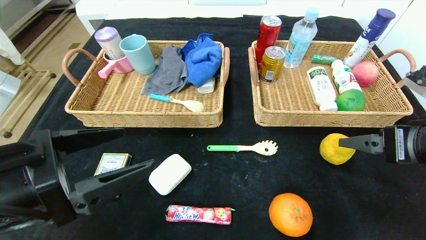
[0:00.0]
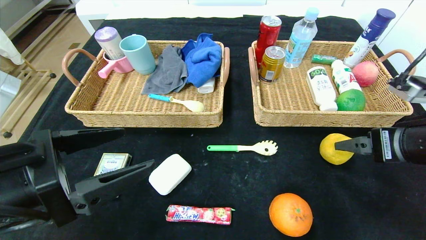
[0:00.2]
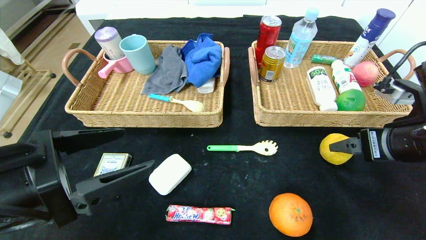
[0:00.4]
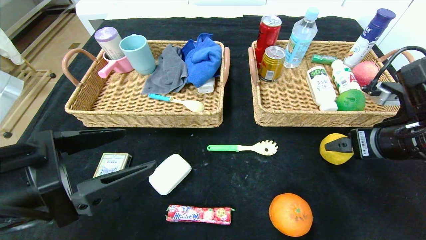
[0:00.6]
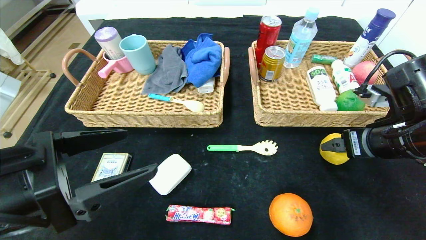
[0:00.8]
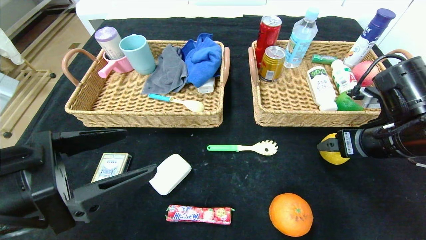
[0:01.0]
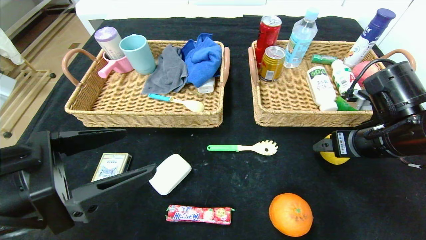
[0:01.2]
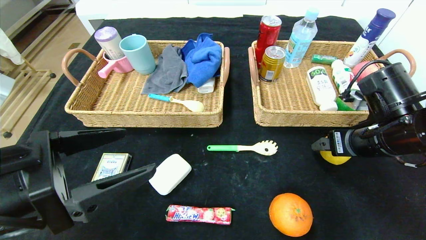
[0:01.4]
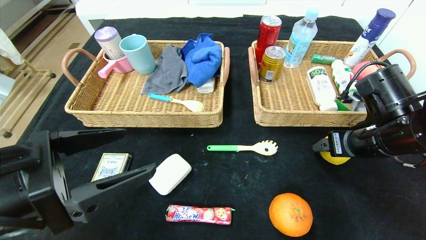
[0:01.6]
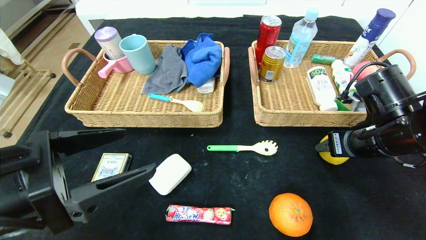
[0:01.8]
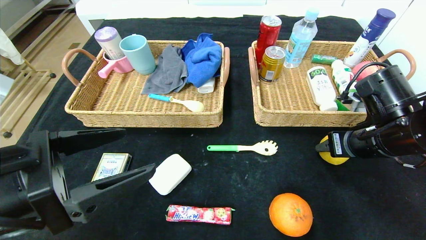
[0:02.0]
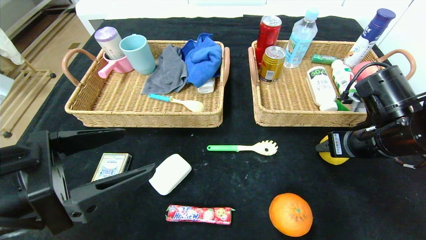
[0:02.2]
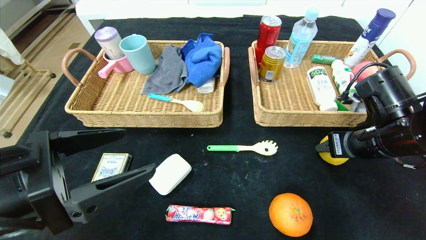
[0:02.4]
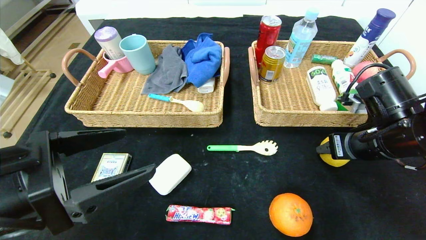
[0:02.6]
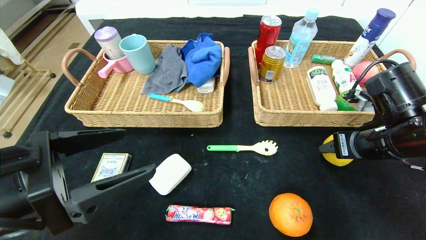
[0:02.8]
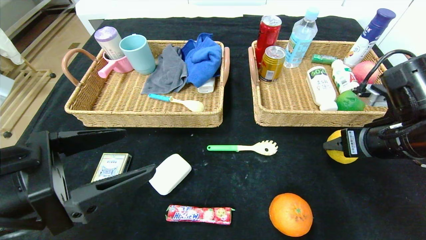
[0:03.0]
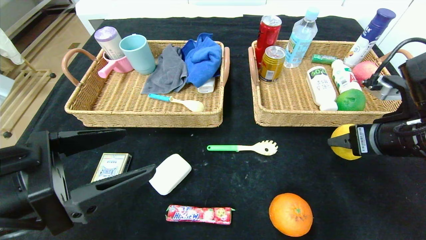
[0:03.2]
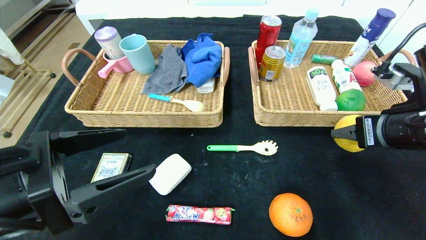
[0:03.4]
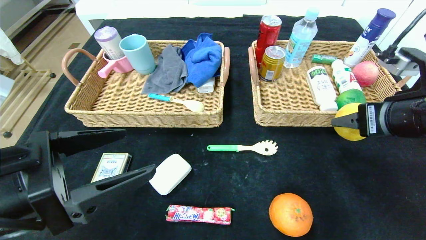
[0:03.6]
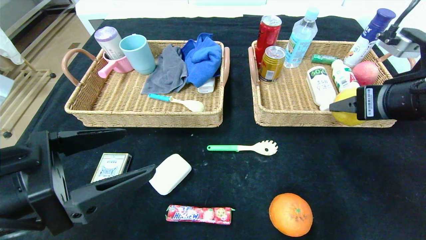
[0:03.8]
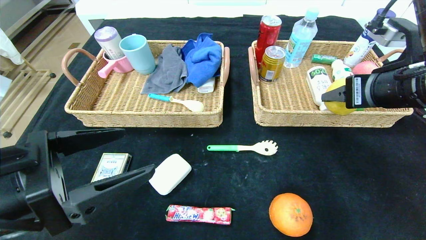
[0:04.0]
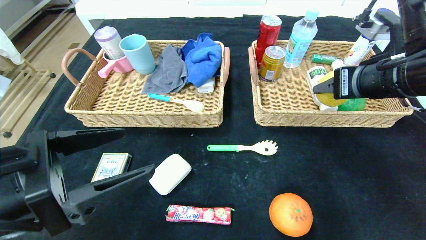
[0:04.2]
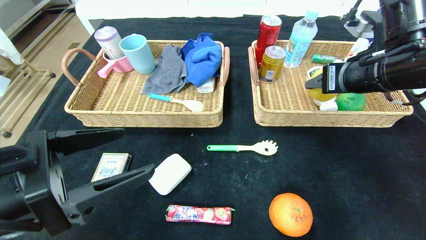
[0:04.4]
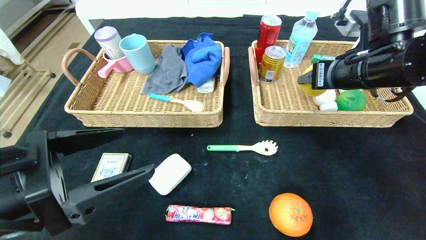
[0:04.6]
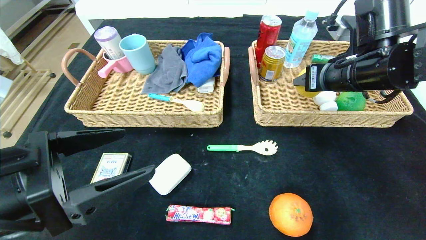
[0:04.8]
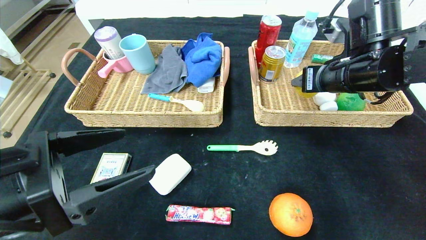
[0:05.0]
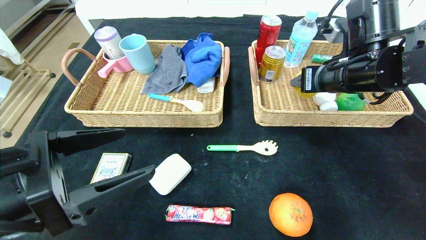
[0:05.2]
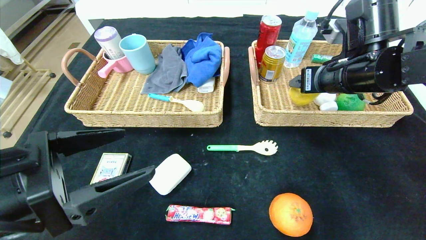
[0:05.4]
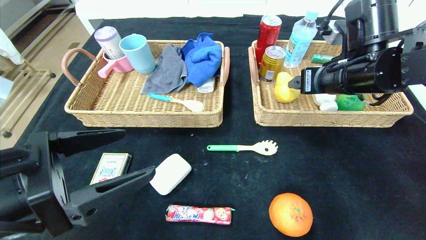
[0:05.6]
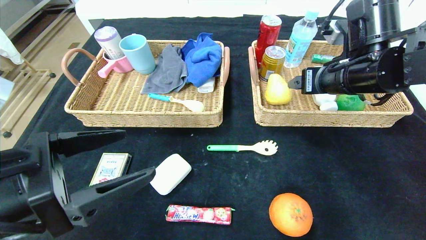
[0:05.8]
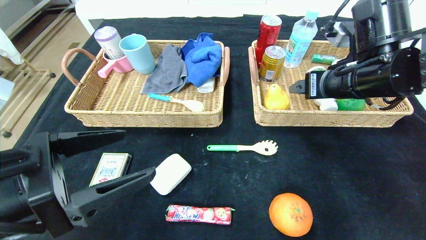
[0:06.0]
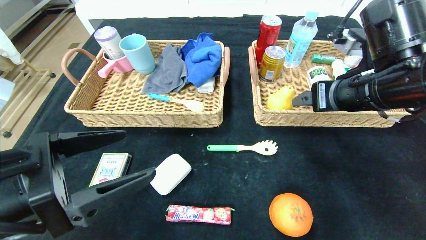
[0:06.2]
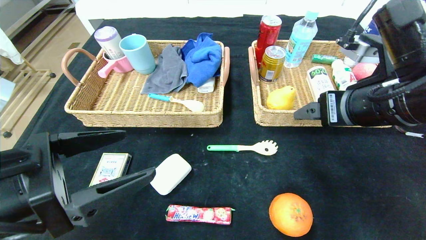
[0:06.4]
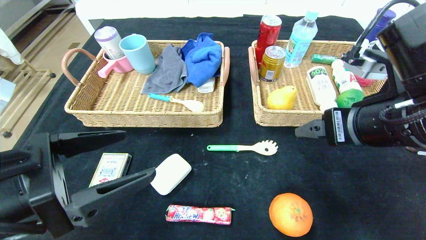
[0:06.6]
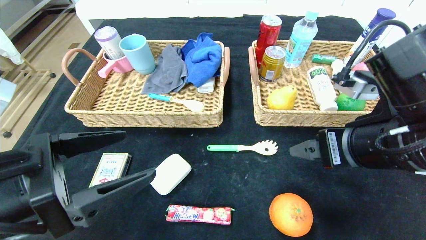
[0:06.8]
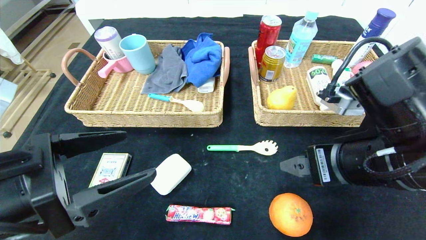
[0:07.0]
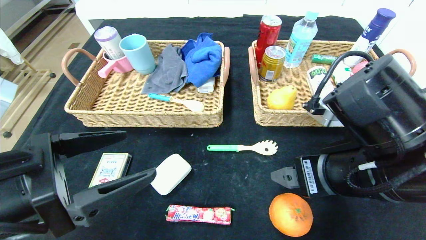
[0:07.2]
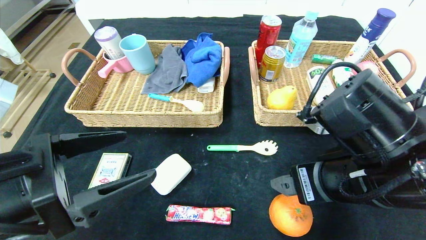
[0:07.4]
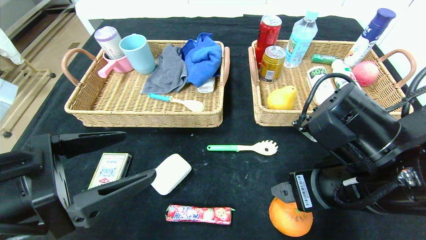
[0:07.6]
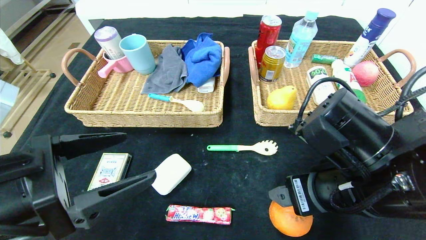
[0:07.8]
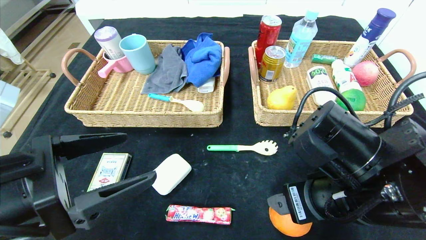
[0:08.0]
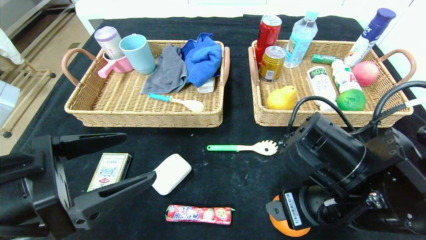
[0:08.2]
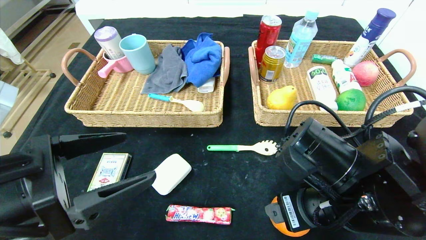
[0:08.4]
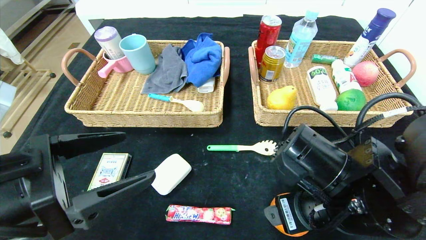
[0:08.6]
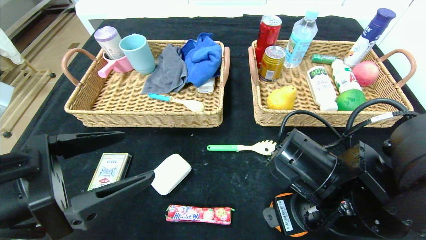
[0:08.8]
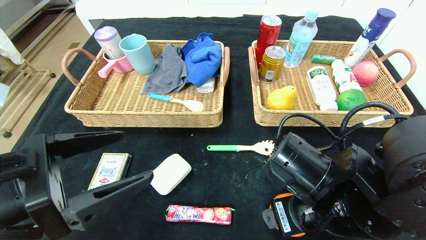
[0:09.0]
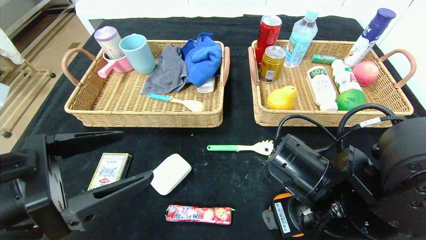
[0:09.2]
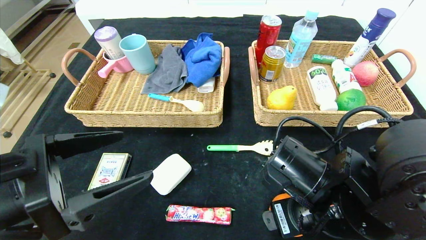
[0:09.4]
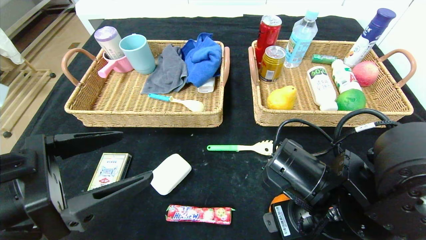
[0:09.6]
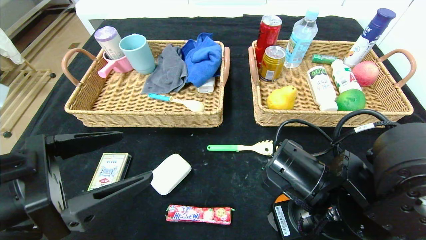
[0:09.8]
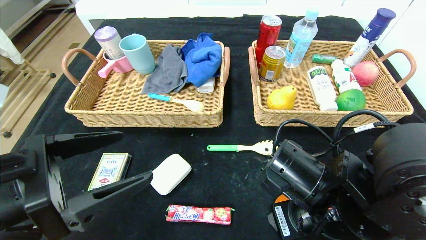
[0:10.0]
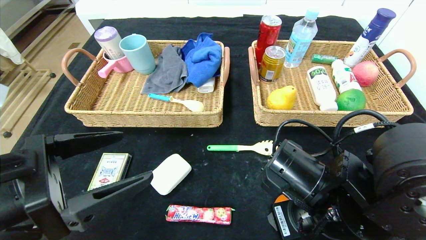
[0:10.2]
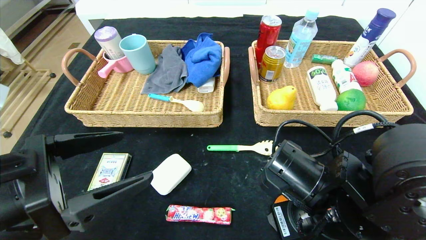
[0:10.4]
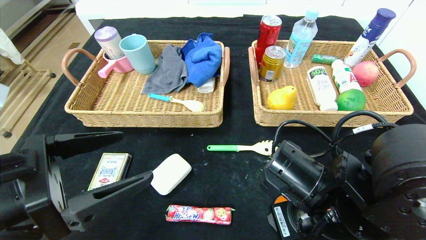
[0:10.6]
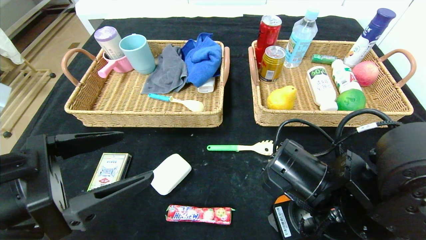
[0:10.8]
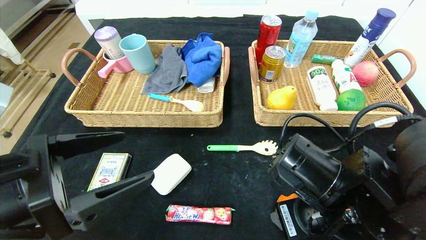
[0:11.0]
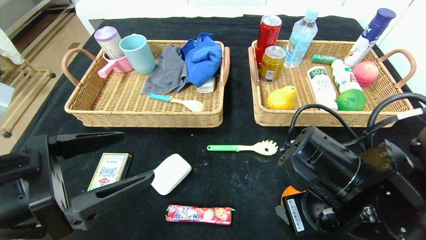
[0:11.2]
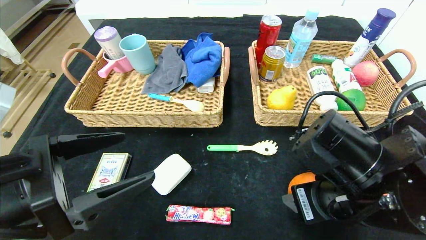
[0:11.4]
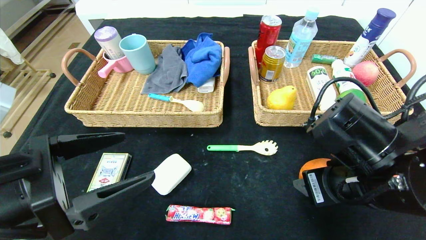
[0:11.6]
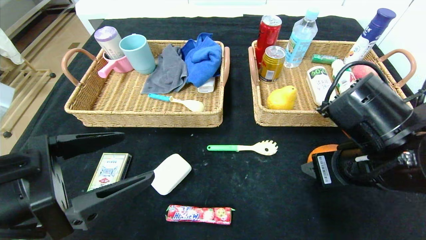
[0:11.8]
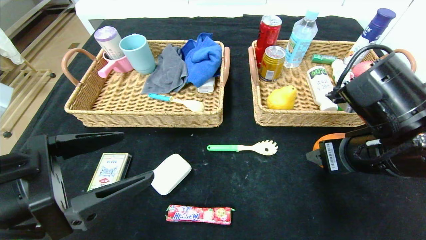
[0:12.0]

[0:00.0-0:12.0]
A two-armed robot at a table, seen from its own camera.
Step, 0:00.0 to 0:05.4: Grasp the pear and put it in the right basket.
0:00.0 to 0:01.6: The right gripper goes some 10 cm forward.
0:01.6 to 0:03.0: The grippers make only small movements.
0:03.0 to 0:04.4: The right gripper shifts about 10 cm upward and forward.
0:04.4 to 0:06.0: The grippers make only small movements.
0:06.0 to 0:07.6: The right gripper shifts about 15 cm backward, downward and to the left.
0:07.6 to 0:09.0: The right gripper shifts by about 5 cm.
0:09.0 to 0:10.4: The two grippers keep their place.
0:10.4 to 0:12.0: The right gripper goes about 10 cm upward and to the right.

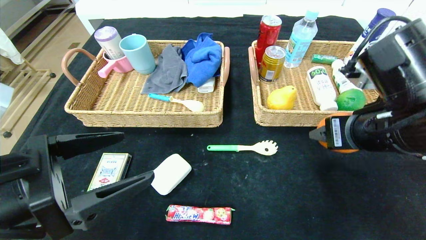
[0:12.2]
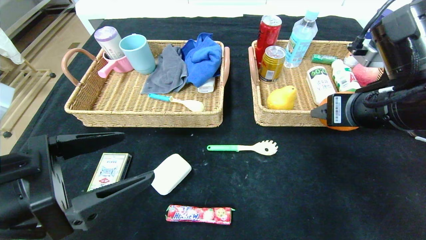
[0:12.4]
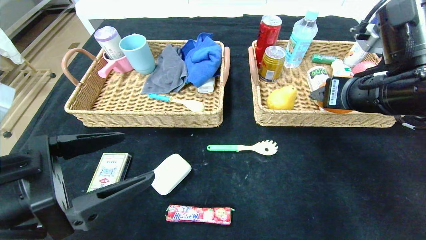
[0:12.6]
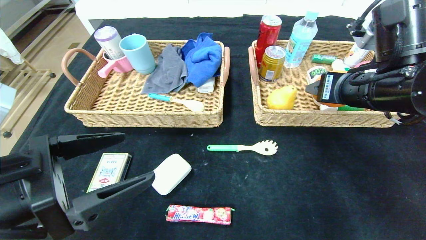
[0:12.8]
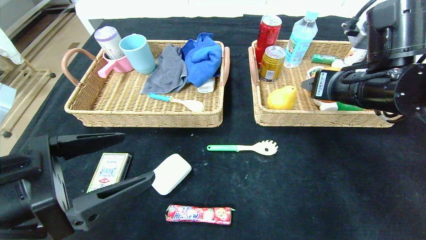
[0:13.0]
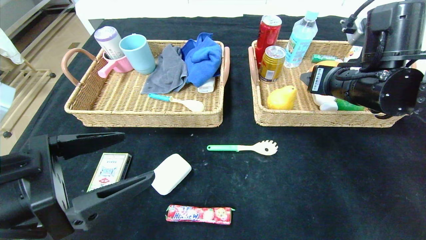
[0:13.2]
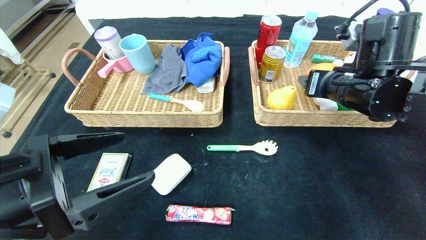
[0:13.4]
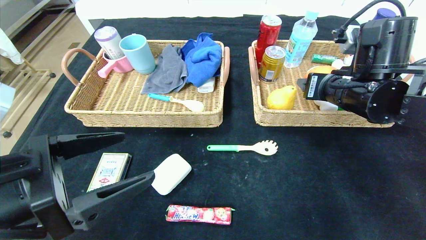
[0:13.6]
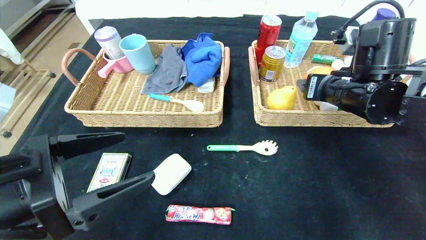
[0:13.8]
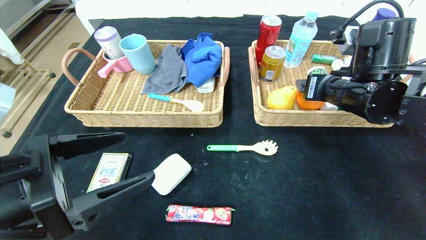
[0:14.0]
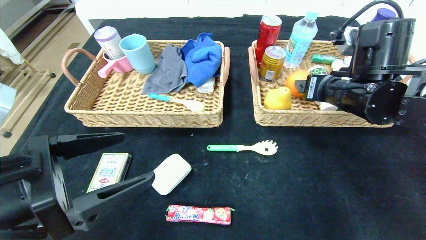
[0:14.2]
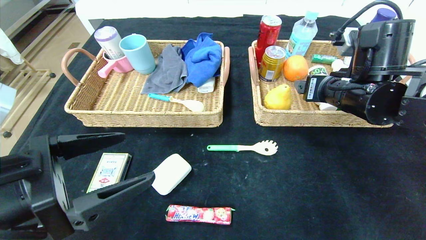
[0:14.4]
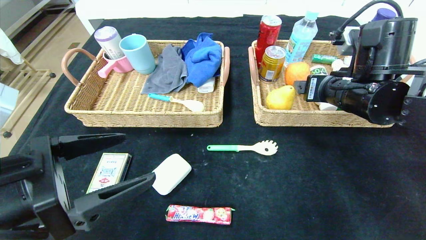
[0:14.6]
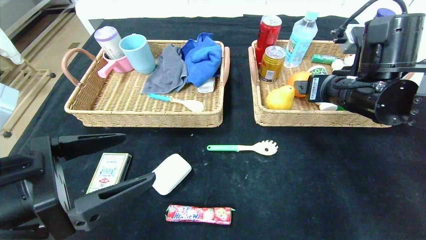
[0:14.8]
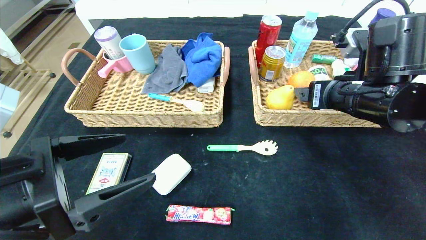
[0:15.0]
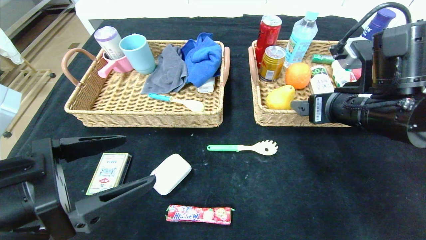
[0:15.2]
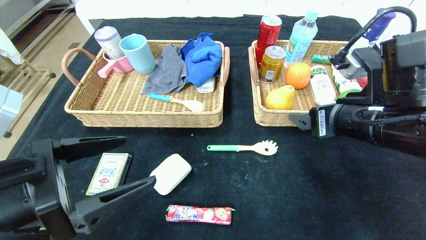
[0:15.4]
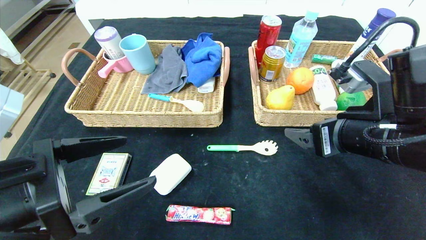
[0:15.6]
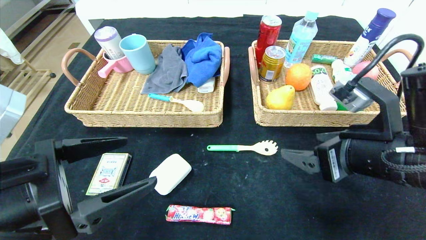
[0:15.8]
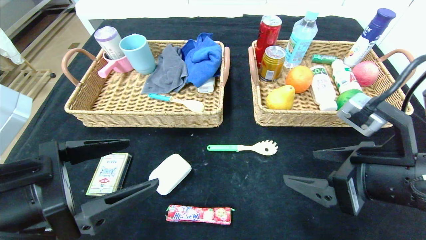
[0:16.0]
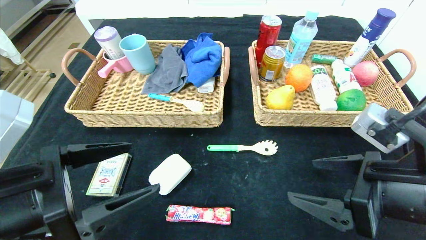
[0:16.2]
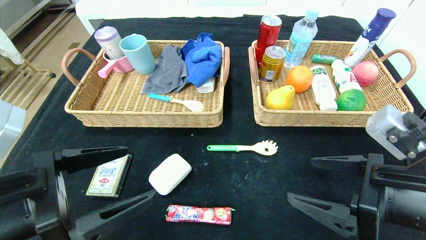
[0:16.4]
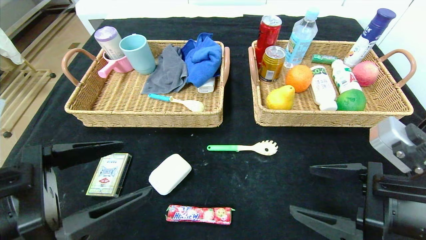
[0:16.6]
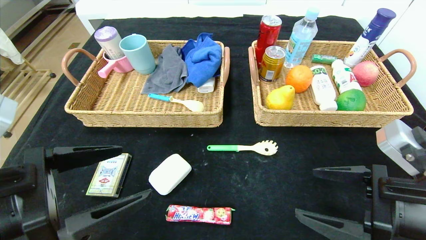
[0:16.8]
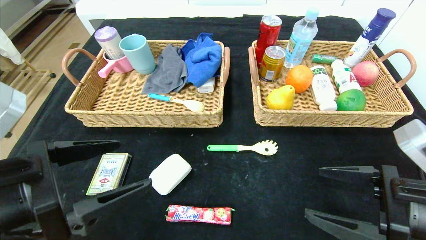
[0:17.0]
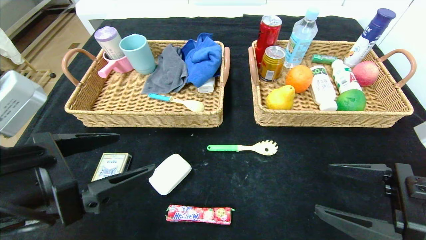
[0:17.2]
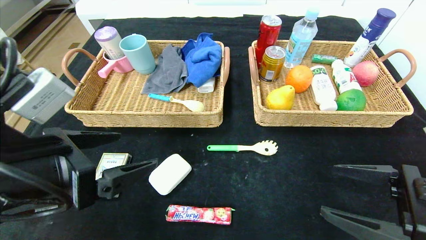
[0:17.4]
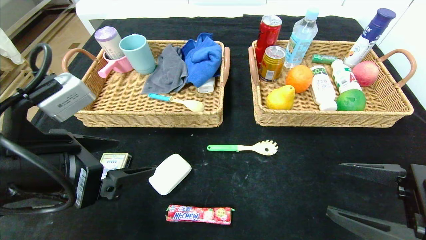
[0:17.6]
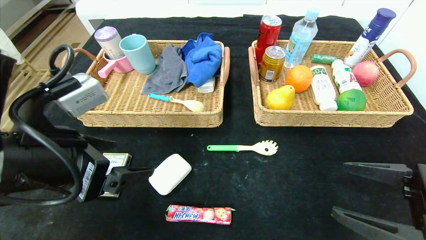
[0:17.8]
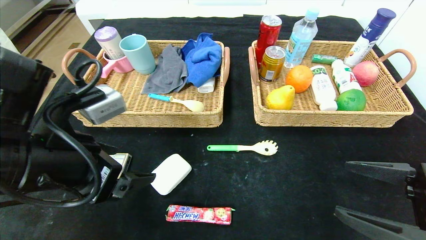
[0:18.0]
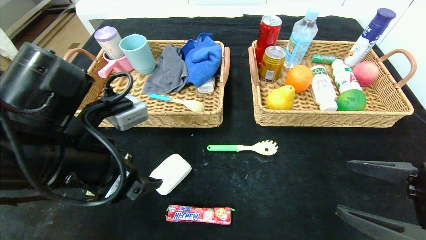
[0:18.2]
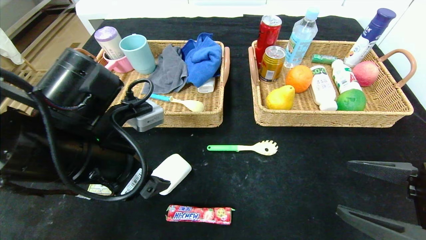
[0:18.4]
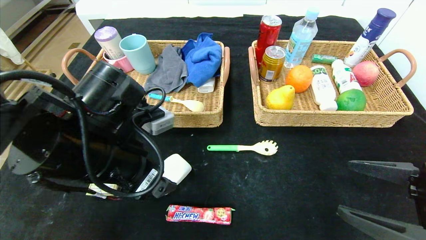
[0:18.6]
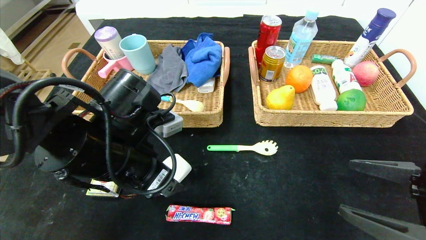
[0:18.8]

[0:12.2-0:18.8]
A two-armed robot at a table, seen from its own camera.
0:12.2 to 0:13.8: The right gripper travels forward by roughly 10 cm.
0:13.8 to 0:15.4: The right gripper shifts some 10 cm backward.
0:15.4 to 0:17.2: The right gripper moves backward, to the right and downward, roughly 15 cm.
0:17.2 to 0:18.8: The left gripper heads forward and to the right, covering approximately 10 cm.
